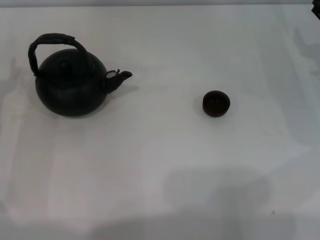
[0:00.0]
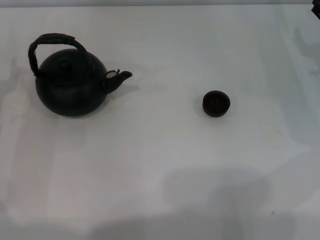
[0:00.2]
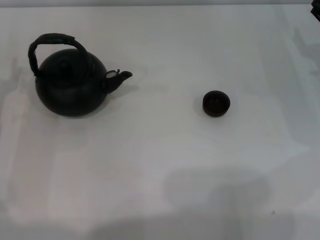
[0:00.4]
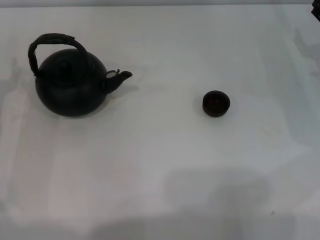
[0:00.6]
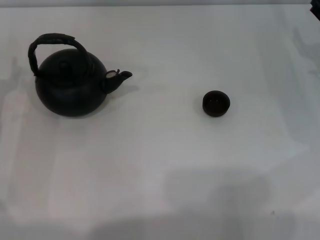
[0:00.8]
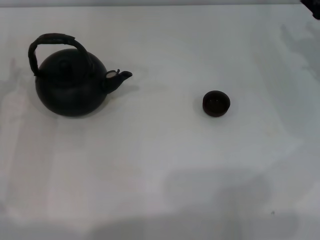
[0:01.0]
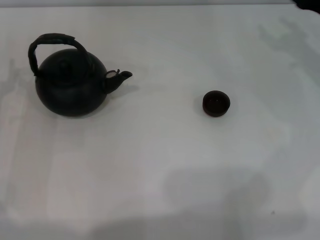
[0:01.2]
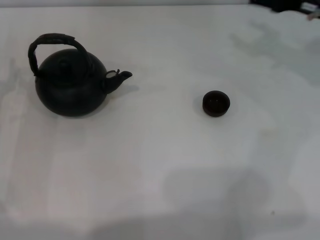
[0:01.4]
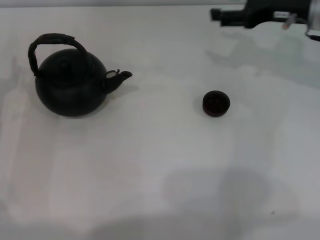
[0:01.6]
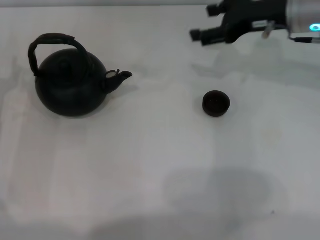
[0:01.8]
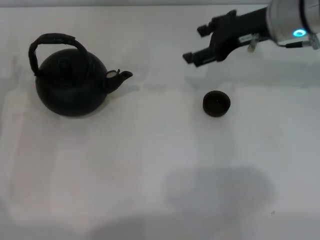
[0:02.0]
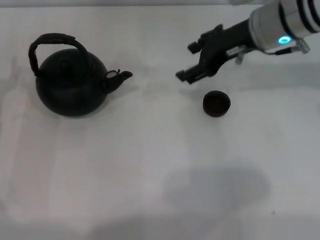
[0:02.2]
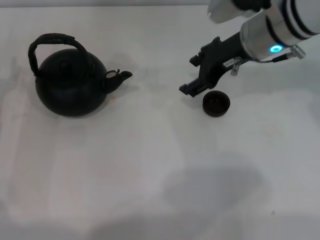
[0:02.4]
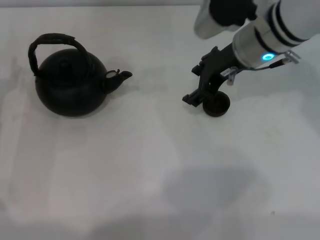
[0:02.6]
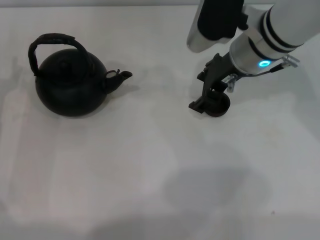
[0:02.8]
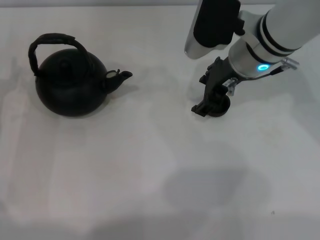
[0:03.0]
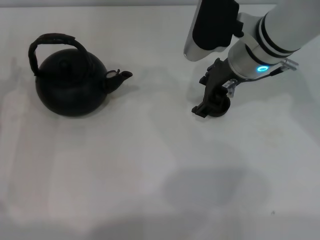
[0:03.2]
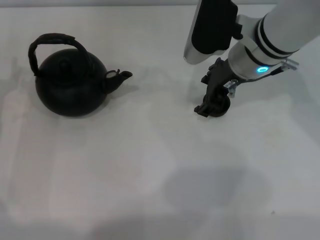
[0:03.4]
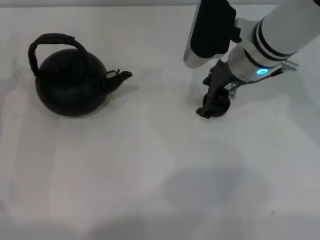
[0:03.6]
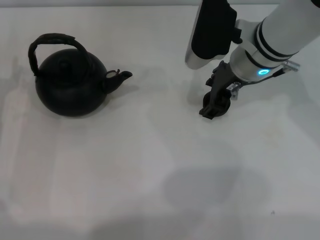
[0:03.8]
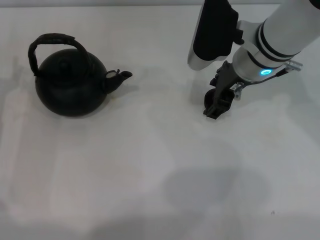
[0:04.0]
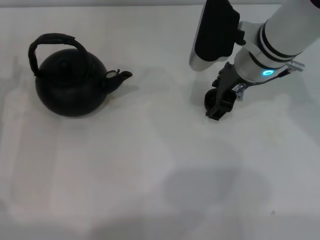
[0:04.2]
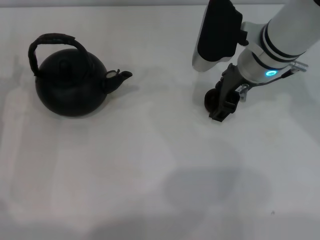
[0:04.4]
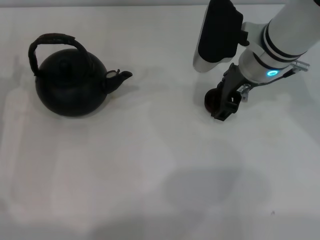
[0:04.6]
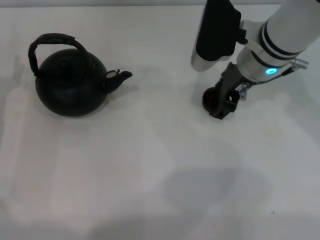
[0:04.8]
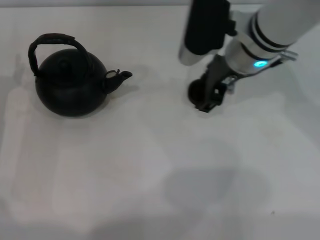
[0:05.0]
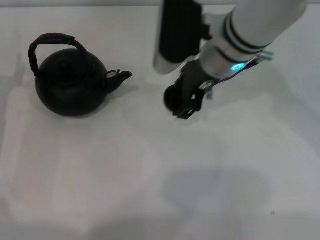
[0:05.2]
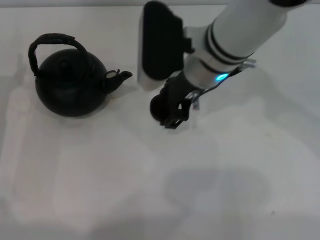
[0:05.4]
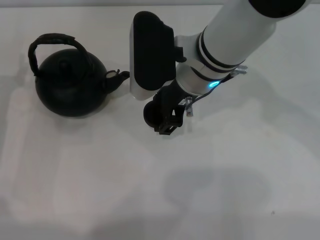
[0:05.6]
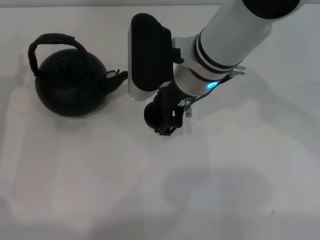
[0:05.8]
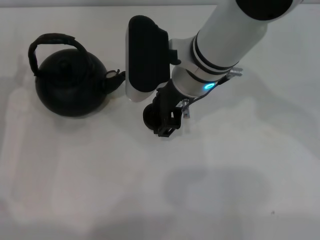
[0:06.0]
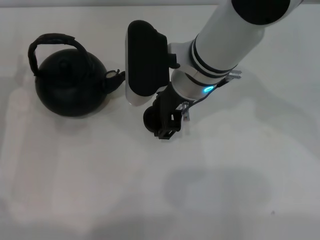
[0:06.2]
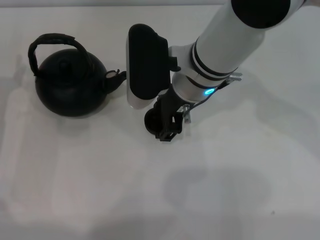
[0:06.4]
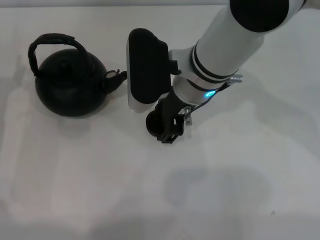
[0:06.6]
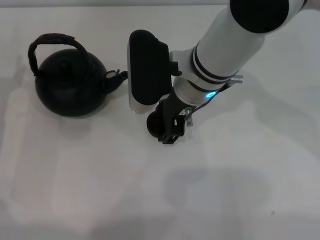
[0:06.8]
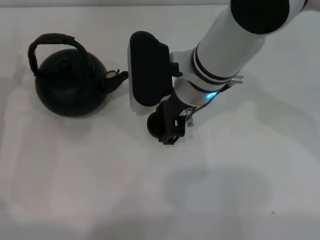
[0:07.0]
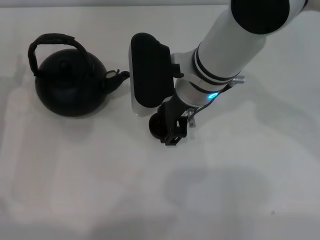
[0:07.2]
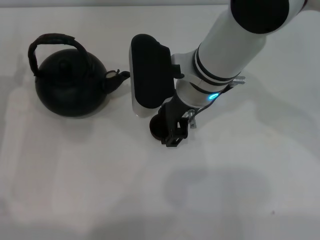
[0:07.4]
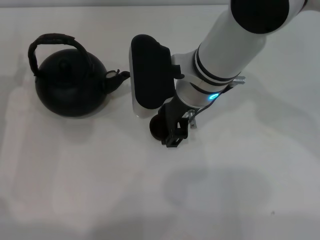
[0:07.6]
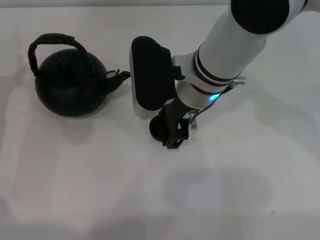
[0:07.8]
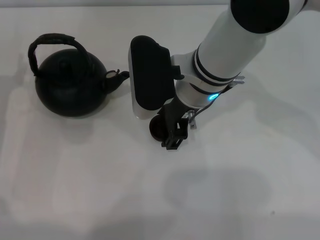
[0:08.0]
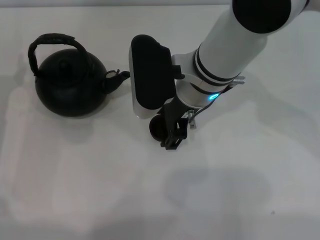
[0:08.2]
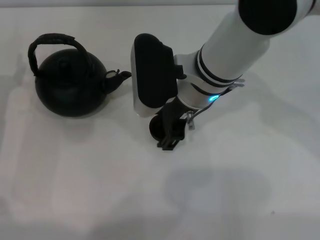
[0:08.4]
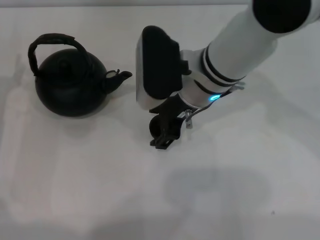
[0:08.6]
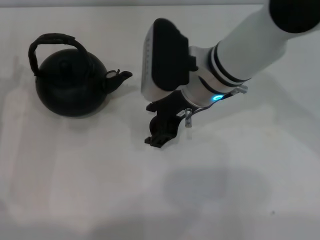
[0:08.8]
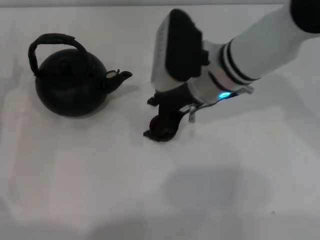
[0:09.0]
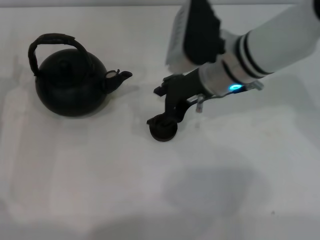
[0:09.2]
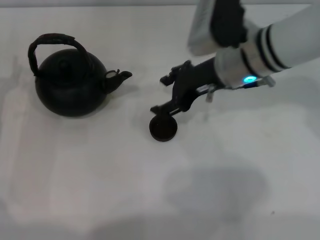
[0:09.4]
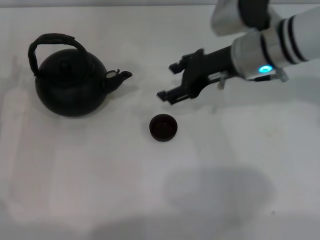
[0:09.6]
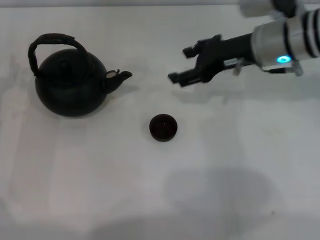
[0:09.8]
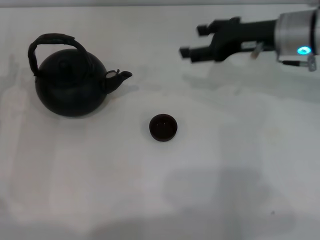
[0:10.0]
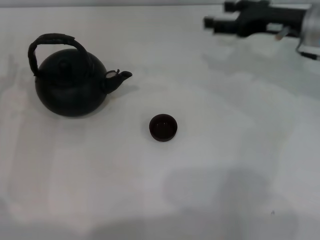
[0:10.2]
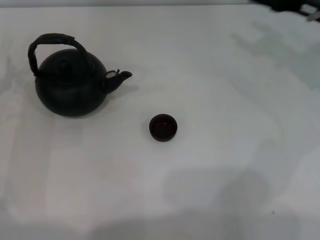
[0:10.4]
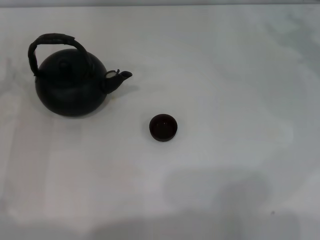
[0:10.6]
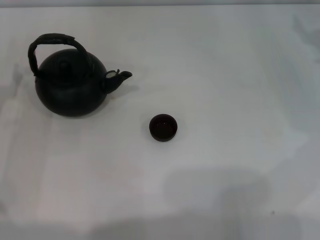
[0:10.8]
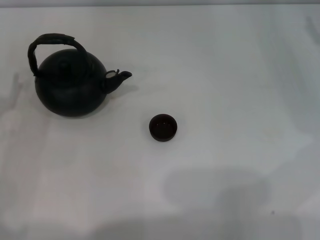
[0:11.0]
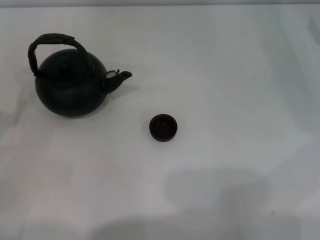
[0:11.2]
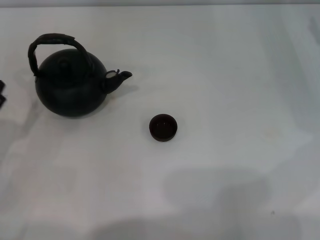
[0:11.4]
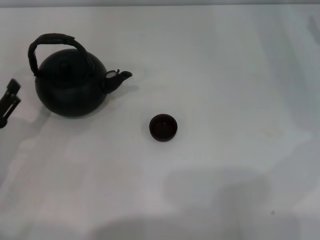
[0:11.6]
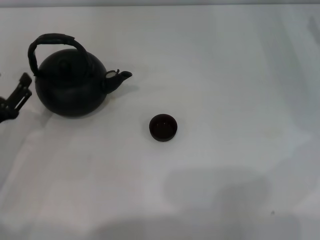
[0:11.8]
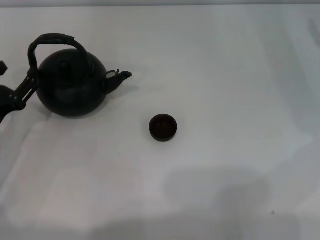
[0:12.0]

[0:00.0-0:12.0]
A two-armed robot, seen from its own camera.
Task of the whole recording: Grasp the handle of the teapot with one hand and pour tea into the teacup.
Step, 0:00.0 to 0:04.8: Pick up the teacup with the right gripper.
Step, 0:05.0 to 0:09.4: Place the teacup in the center of view with the right gripper.
0:00.0 to 0:01.6: The right gripper shifts some 15 cm upward and to the left.
0:01.6 to 0:03.0: The right gripper shifts approximately 10 cm to the left.
0:03.0 to 0:04.4: There are only small adjustments of the grippers.
0:04.4 to 0:06.0: The right gripper heads to the left, covering about 10 cm.
0:06.0 to 0:07.6: There are only small adjustments of the grippers.
0:09.0 to 0:10.4: The right gripper heads to the right, covering some 20 cm.
0:10.4 to 0:12.0: The right gripper is displaced to the right by roughly 5 cm.

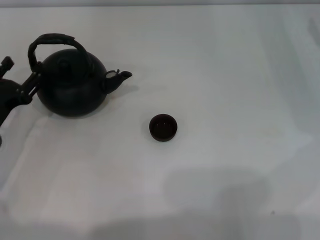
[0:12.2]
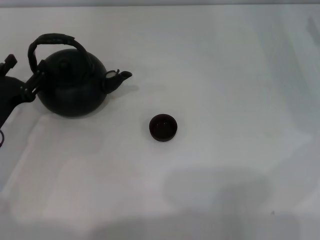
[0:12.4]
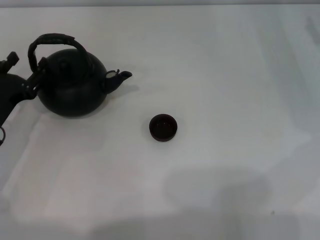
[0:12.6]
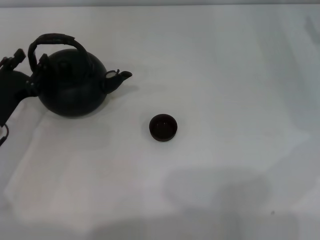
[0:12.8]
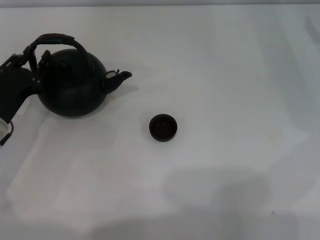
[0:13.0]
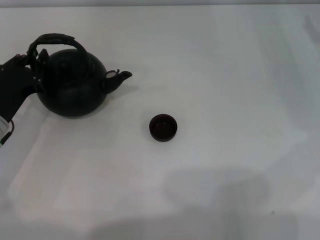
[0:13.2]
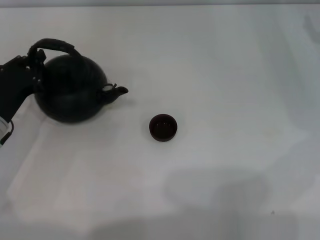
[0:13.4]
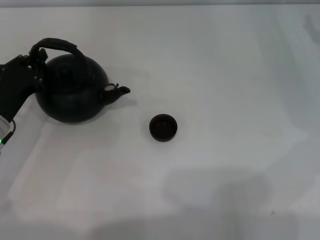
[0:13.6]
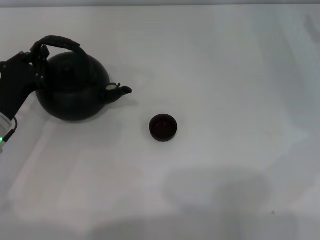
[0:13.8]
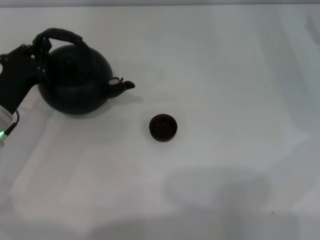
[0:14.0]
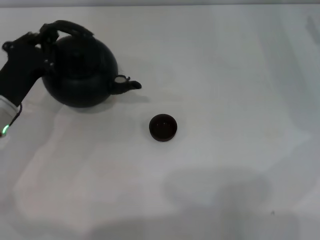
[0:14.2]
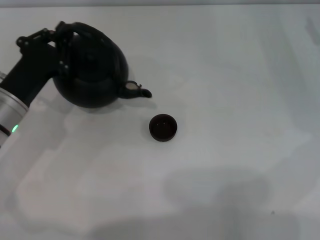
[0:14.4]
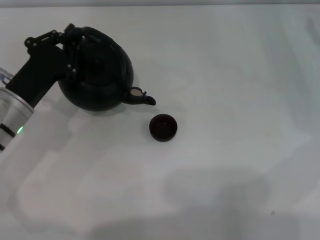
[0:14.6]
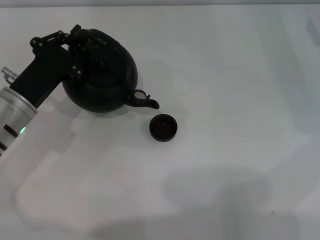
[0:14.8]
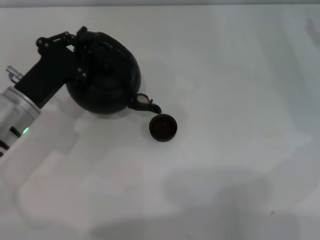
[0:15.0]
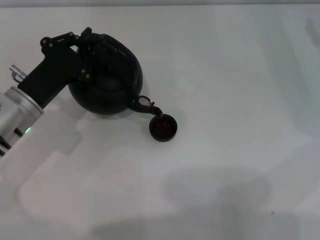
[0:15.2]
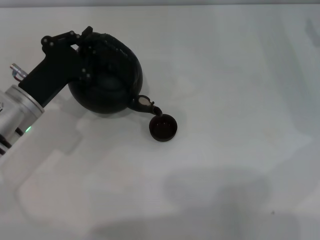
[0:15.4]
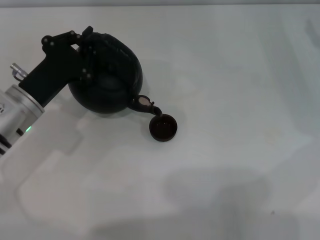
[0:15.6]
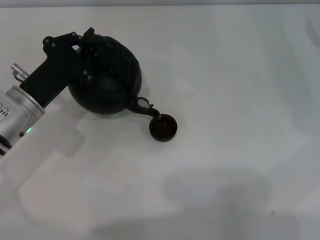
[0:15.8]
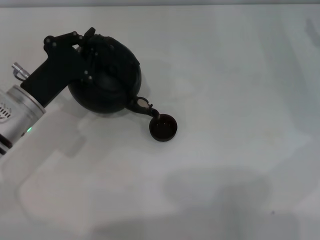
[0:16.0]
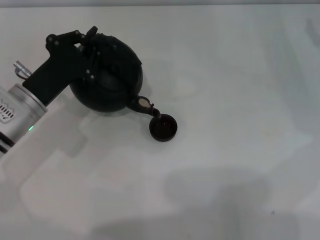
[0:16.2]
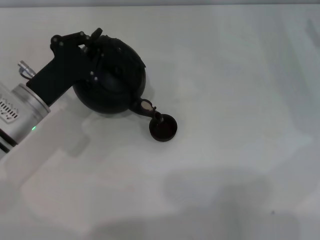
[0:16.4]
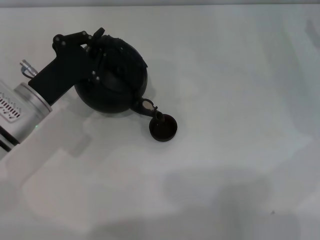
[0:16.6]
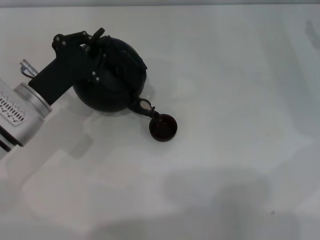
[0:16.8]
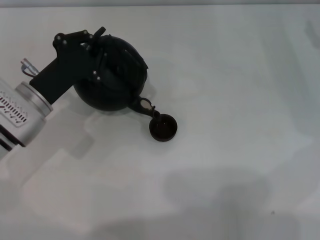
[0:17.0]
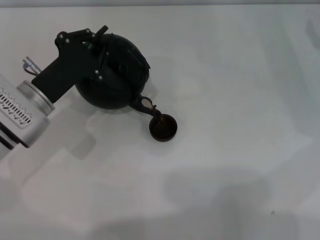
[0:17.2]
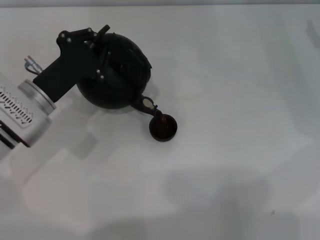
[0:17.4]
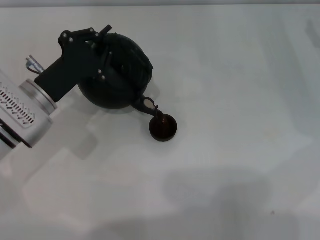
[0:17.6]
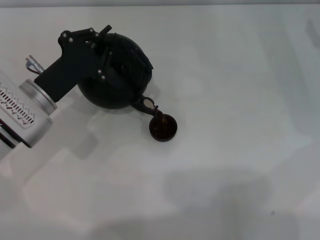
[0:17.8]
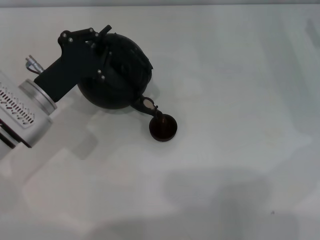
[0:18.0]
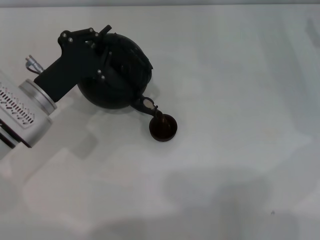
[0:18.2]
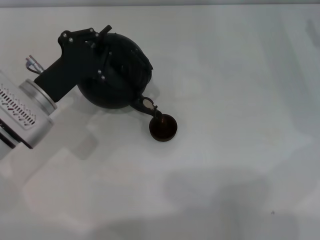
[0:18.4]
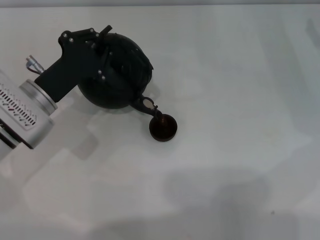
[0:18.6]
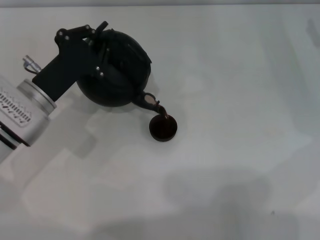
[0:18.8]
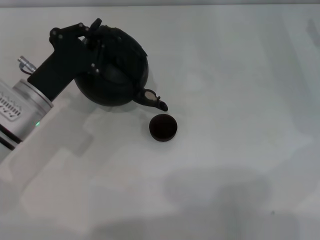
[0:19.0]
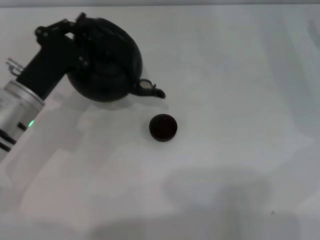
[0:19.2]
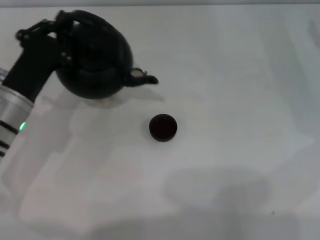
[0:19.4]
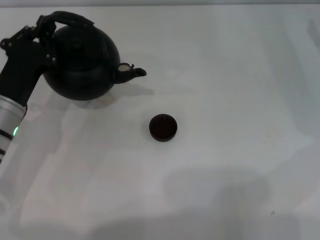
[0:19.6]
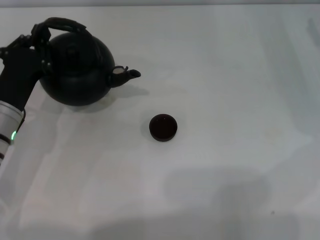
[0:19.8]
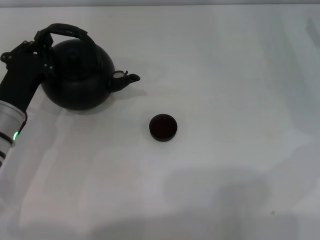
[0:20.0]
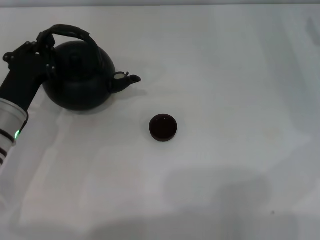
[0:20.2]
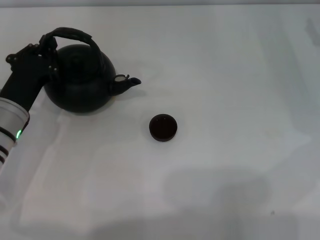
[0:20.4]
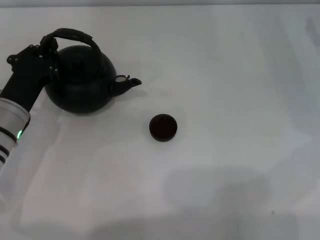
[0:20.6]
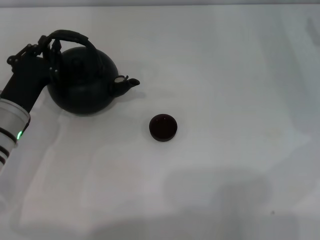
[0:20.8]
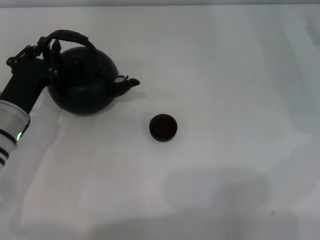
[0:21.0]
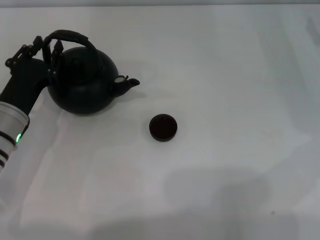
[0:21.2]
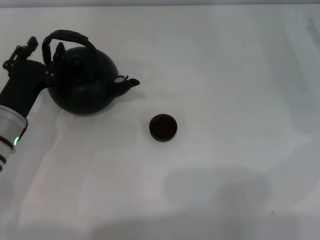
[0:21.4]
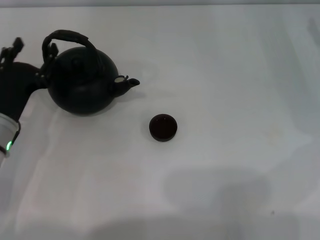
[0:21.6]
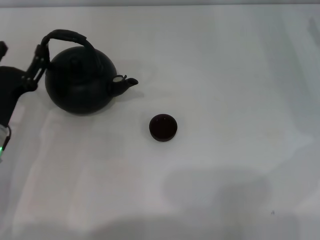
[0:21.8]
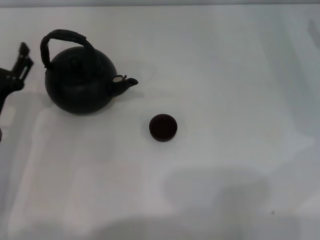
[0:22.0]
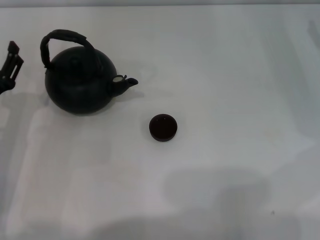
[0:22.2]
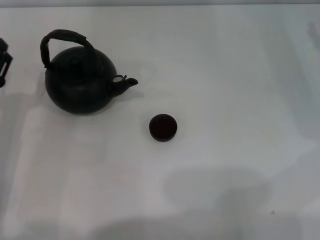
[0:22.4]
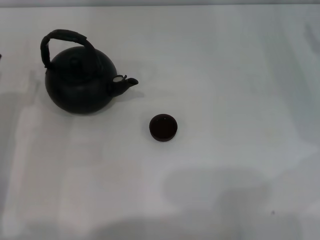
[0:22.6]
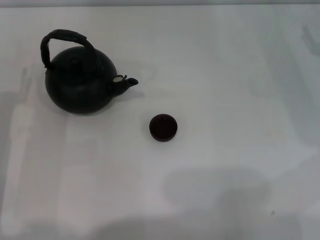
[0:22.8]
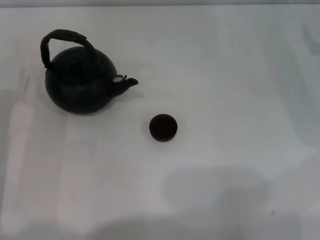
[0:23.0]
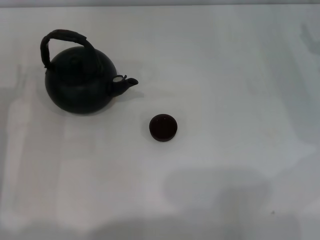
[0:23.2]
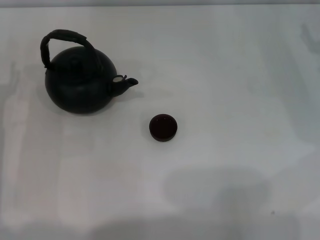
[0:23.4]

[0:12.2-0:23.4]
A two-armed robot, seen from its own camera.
Task of the whole recording: Grasp the handle of the teapot with one hand and pour tea into the teacup.
Step, 0:12.2 to 0:14.2: Pick up the teapot with the left gripper.
Step, 0:14.4 to 0:19.2: Pour tea into the teacup with the left gripper.
Step, 0:19.4 to 0:21.8: Put down the teapot with the left gripper.
0:12.2 to 0:13.8: The left gripper closes its fingers.
0:13.8 to 0:15.4: The left gripper changes place by about 5 cm.
0:15.4 to 0:17.0: There are only small adjustments of the grippers.
0:17.0 to 0:18.6: Both grippers stay about where they are.
0:20.2 to 0:21.8: The left gripper opens up.
